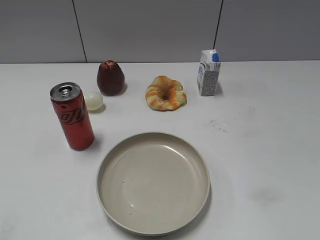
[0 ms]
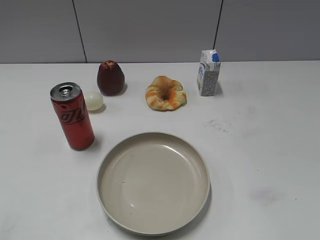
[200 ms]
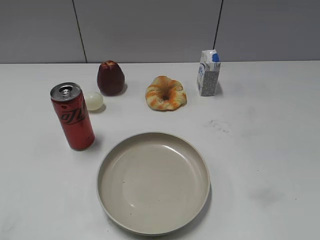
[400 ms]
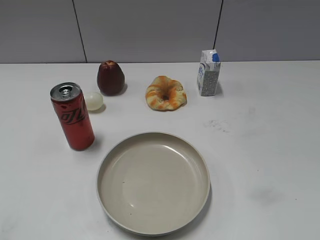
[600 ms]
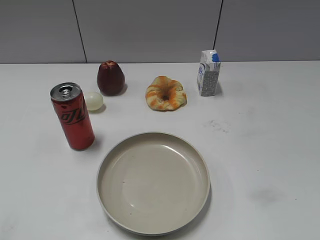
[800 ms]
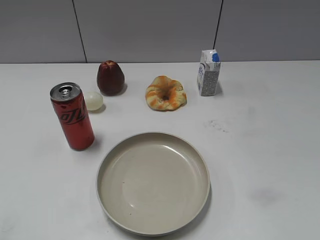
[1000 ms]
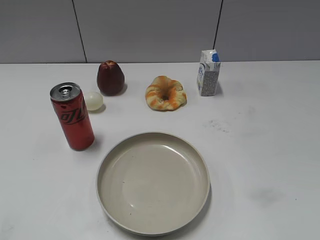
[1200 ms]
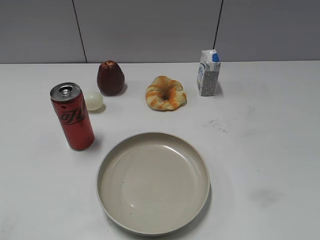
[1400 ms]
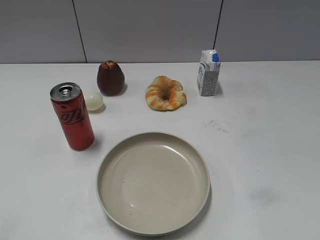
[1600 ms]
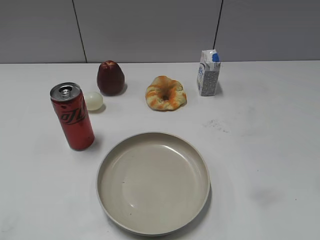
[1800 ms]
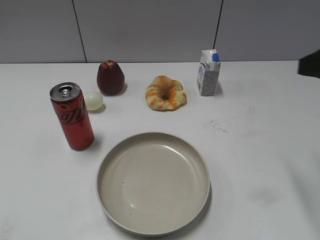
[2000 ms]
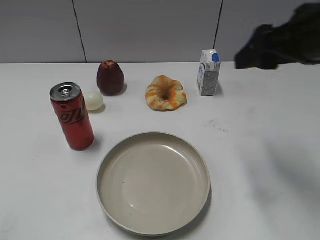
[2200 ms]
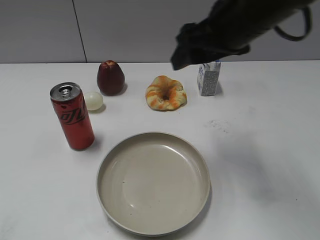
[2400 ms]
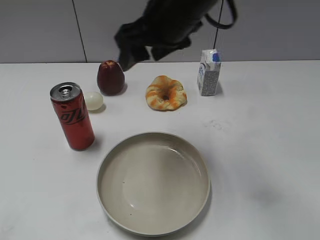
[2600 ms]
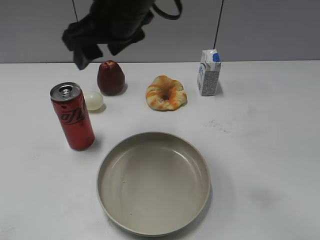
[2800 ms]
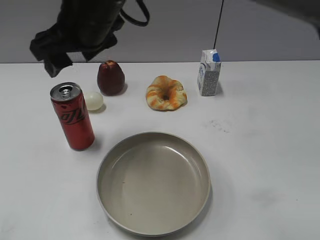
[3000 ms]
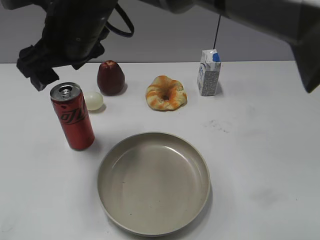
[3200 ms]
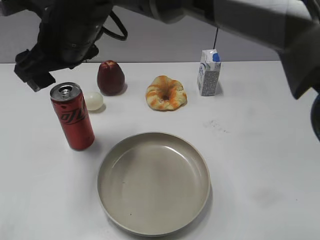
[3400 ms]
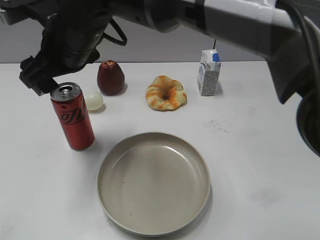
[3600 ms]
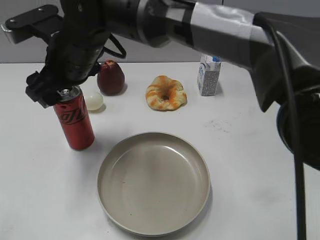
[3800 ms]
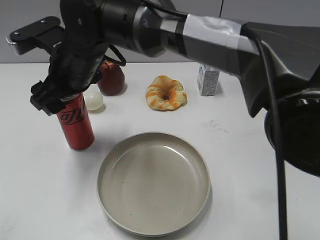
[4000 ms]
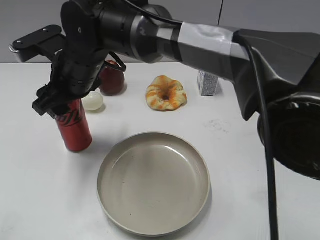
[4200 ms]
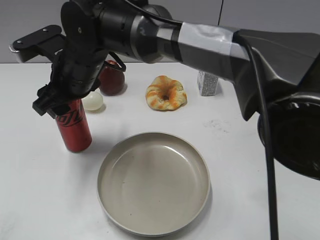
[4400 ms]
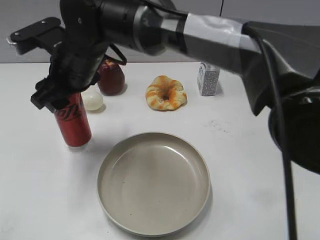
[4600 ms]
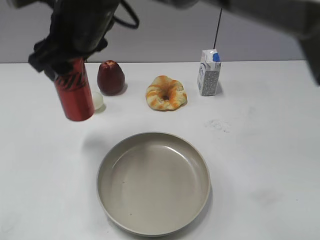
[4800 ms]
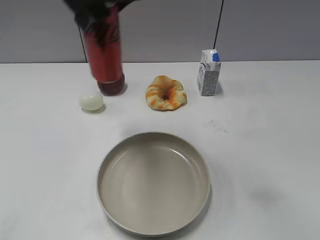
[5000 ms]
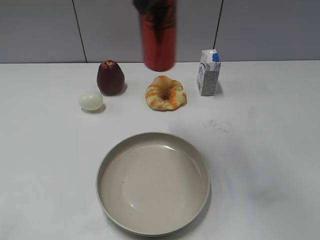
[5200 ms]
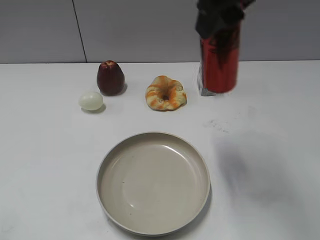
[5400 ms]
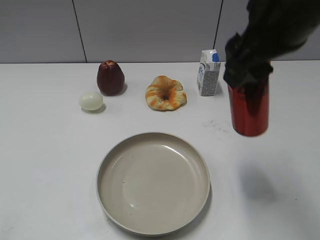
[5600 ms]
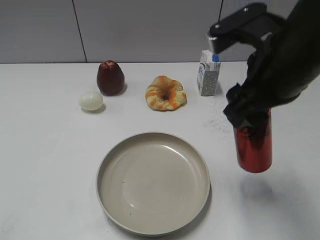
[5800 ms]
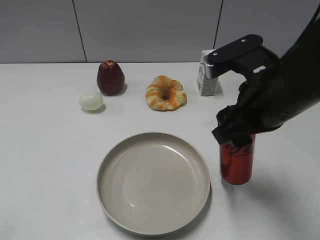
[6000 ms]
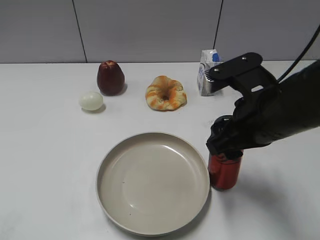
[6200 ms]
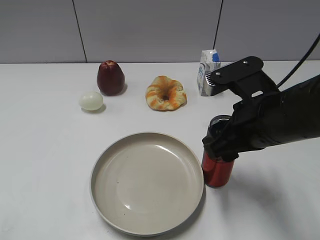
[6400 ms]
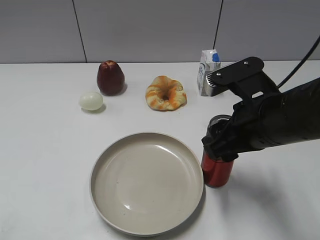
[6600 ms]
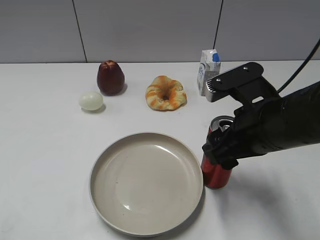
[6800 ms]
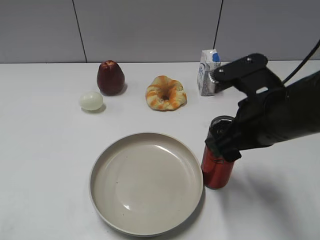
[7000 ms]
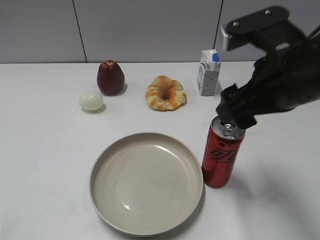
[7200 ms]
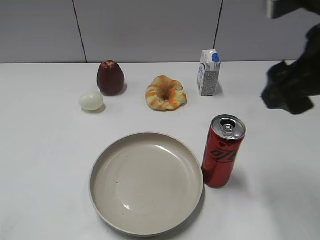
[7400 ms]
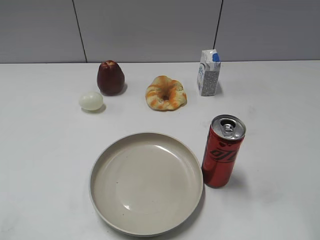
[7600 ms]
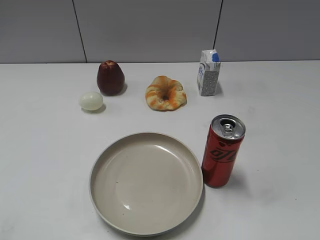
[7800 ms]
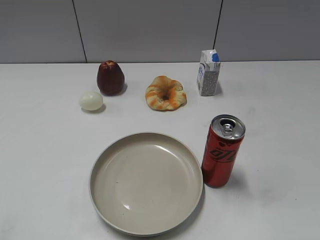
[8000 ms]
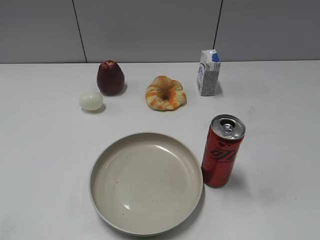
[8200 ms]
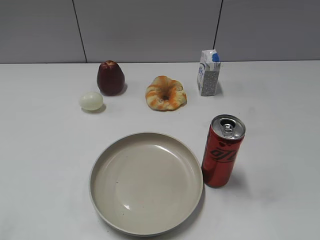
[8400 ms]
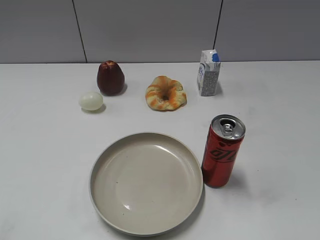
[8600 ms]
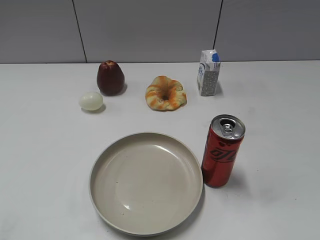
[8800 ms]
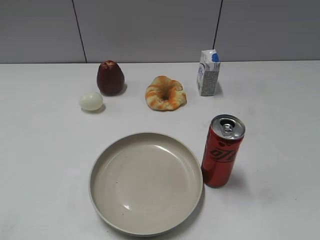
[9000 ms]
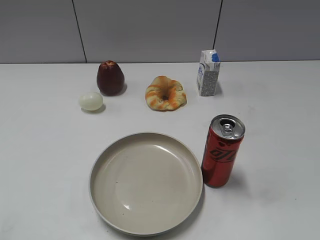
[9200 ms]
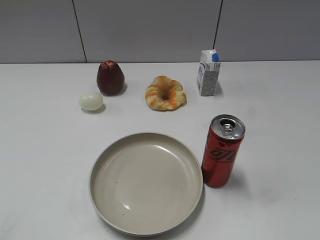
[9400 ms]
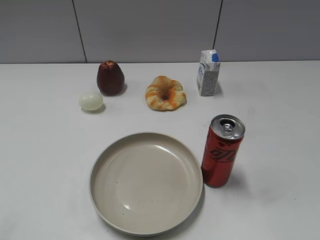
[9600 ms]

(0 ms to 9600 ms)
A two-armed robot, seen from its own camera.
Step, 1000 ms - 4200 ms: Grasp the cola with right gripper.
Step, 4600 ms - 7200 ms: Place the cola on the table with right gripper.
1600 ms - 3200 ms: The right gripper goes approximately 50 cm to the left and forward, and opens.
3200 ms - 4800 ms: The right gripper goes downward and returns, roughly 5 cm each way, and closes.
4800 ms - 6400 ms: The right gripper heads to the right, downward and backward, covering roughly 25 cm.
6400 ms - 8000 ms: The right gripper goes about 25 cm backward, to the right and upward, and opens its fingers.

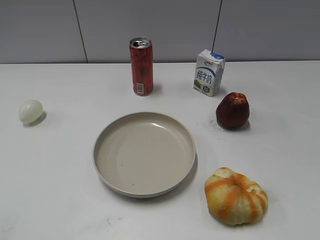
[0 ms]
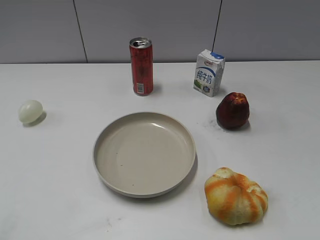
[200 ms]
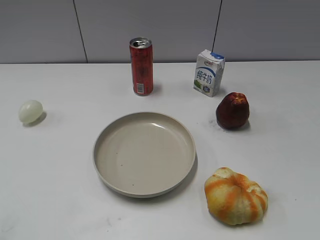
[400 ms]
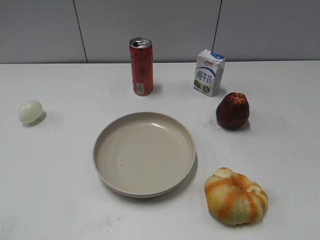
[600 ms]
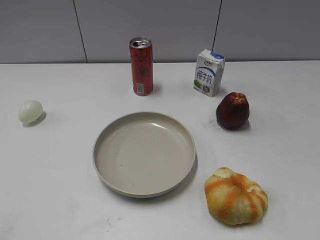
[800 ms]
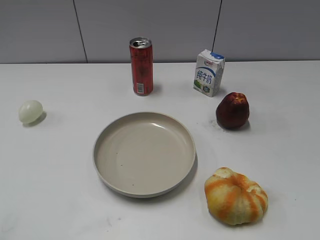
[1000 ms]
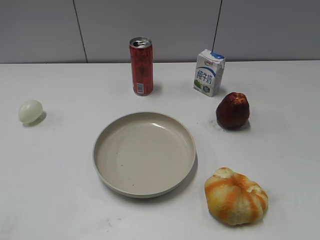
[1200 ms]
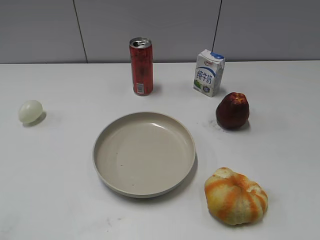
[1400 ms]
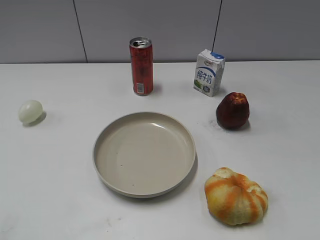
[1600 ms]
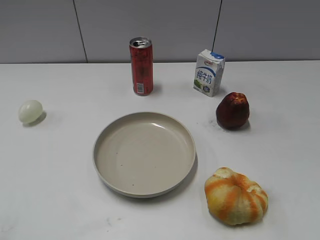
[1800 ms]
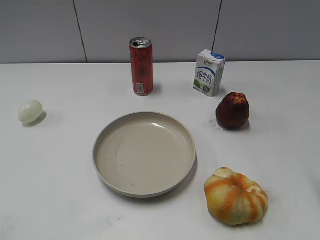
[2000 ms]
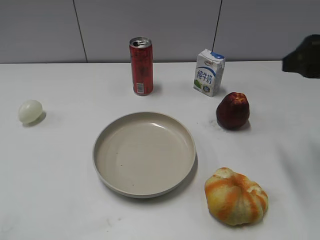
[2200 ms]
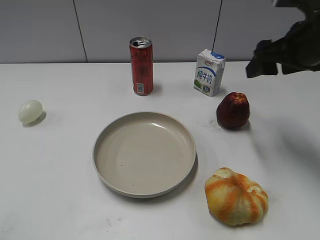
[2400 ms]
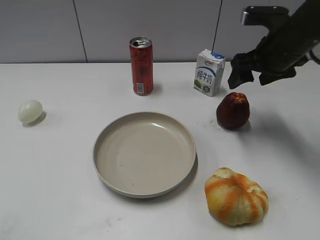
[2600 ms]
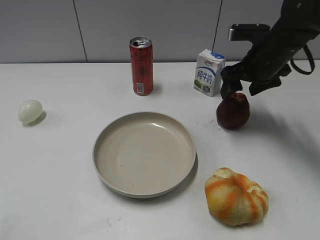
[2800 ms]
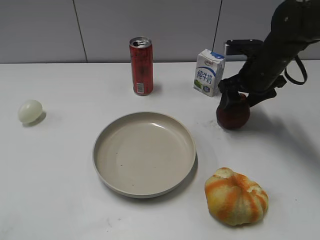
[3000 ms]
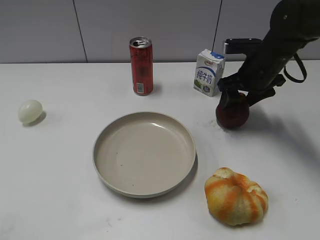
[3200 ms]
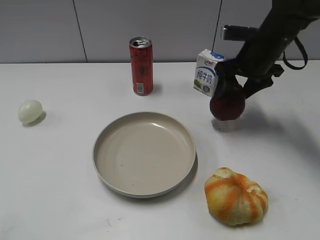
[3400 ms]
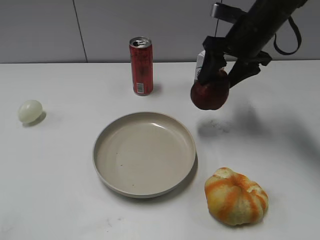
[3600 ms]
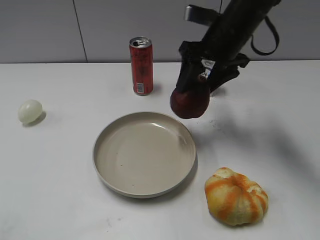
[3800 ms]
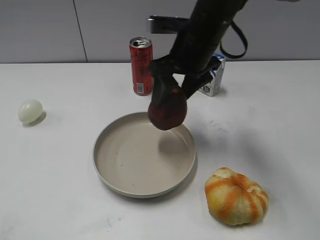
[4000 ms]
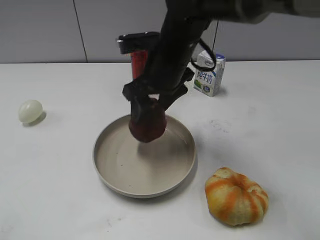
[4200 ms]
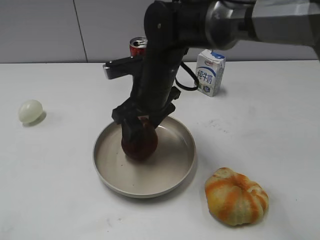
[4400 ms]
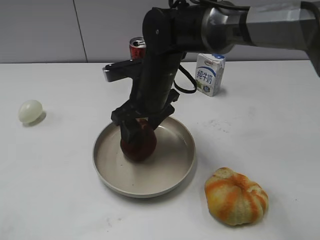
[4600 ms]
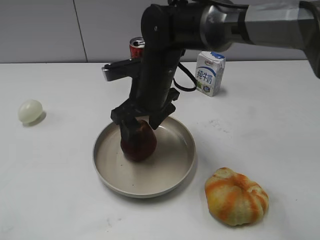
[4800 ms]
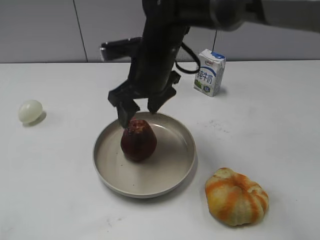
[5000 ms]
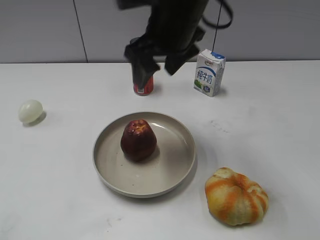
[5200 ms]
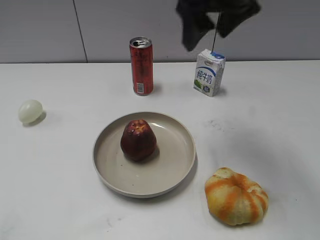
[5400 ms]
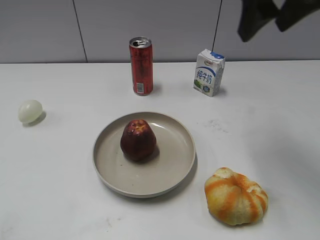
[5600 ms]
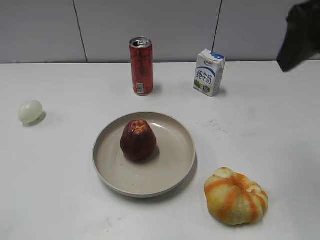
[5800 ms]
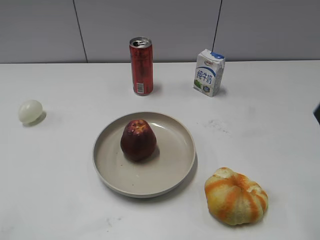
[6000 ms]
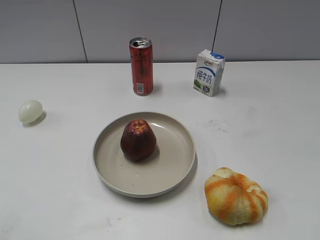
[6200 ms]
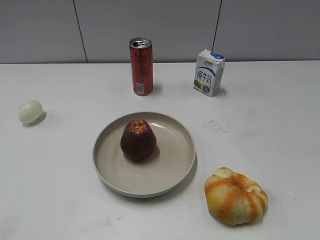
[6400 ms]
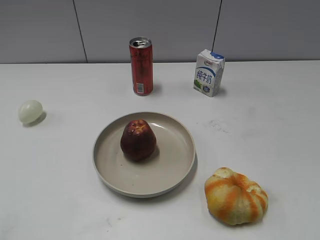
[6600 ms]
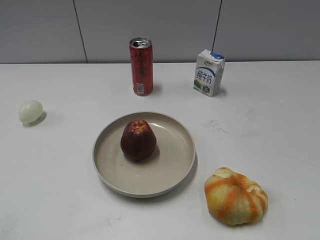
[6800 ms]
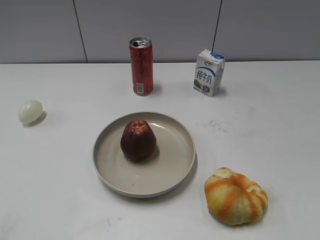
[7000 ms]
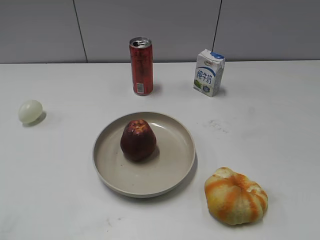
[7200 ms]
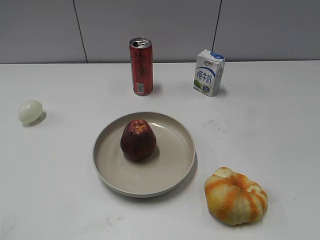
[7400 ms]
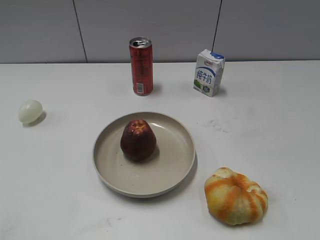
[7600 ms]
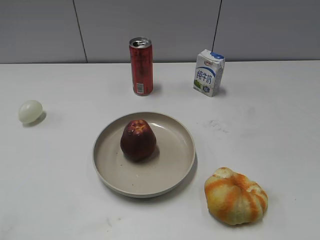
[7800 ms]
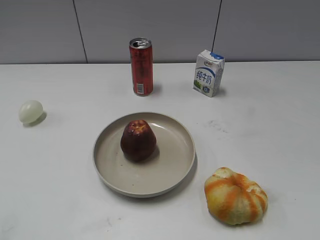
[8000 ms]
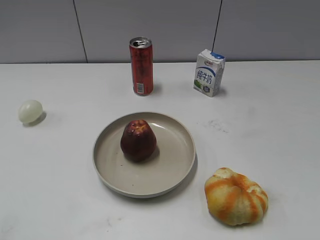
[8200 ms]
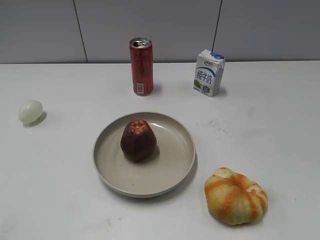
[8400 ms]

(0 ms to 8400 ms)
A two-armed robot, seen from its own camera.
Step, 1200 ms - 3000 ms: Grasp the apple with right gripper.
Step, 3200 ms - 5000 ms: Place the apple on the plate with right gripper.
1400 ms - 2800 ms: The right gripper moves forward, some 40 cm, and opens up.
2800 ms - 4200 ms: The right gripper moves to the left, approximately 15 cm, and closes its fingers.
4200 ms - 5600 ms: The right gripper is displaced upward and to the right by approximately 15 cm, and opens its fingers.
5600 ms - 7000 ms: The right gripper goes roughly 30 cm backward and to the right.
